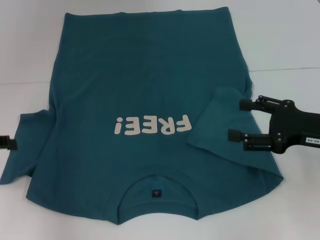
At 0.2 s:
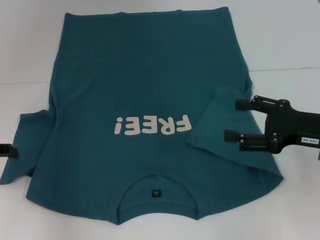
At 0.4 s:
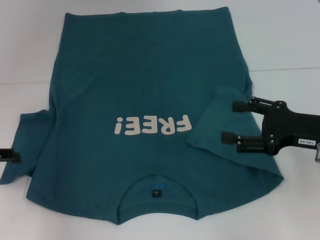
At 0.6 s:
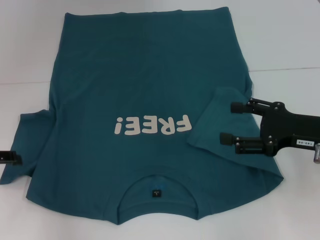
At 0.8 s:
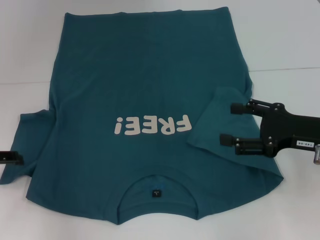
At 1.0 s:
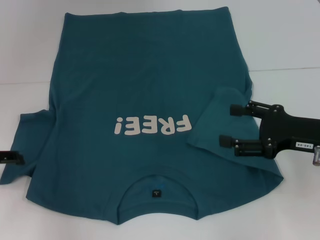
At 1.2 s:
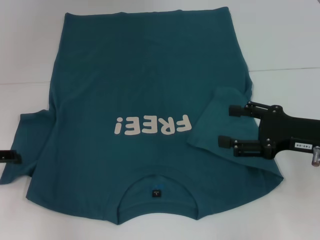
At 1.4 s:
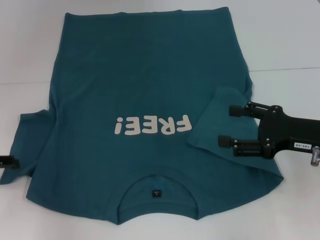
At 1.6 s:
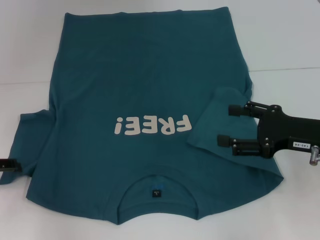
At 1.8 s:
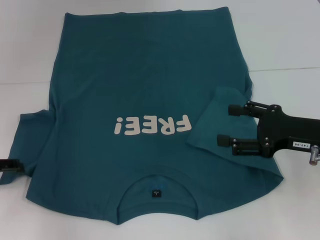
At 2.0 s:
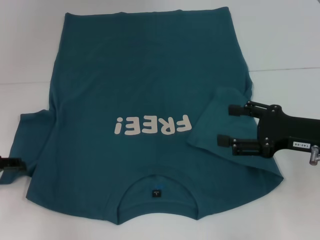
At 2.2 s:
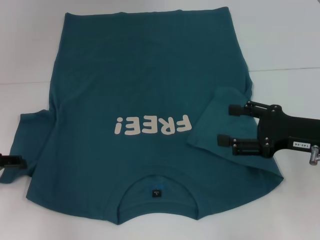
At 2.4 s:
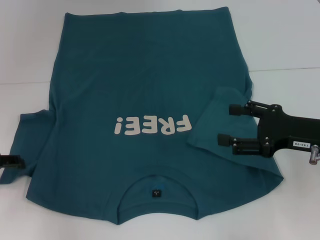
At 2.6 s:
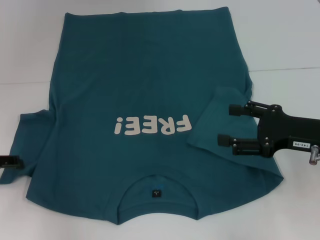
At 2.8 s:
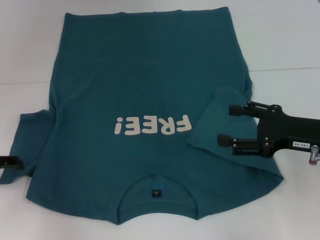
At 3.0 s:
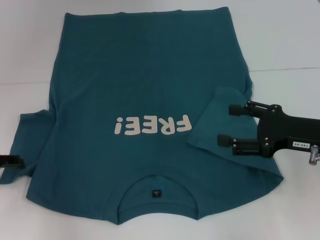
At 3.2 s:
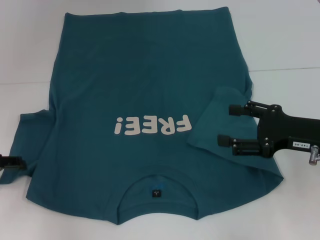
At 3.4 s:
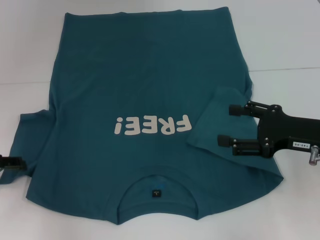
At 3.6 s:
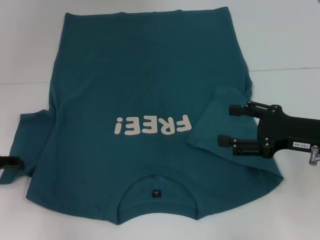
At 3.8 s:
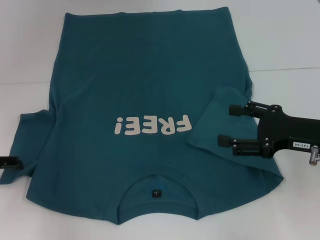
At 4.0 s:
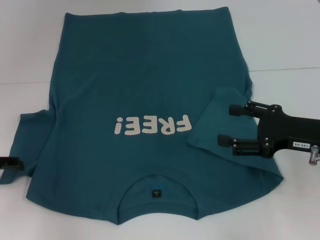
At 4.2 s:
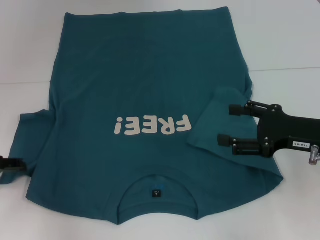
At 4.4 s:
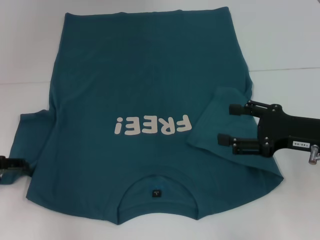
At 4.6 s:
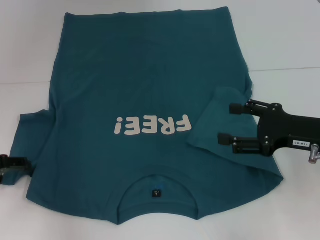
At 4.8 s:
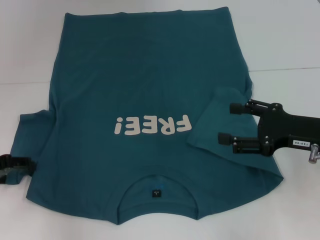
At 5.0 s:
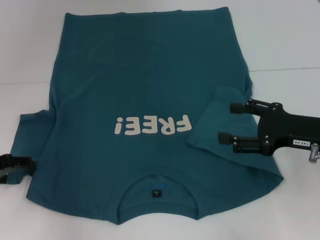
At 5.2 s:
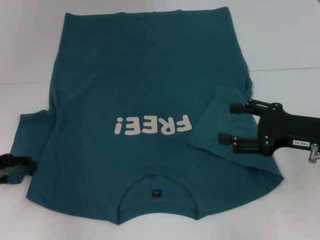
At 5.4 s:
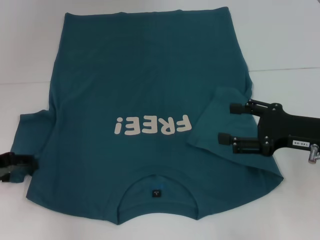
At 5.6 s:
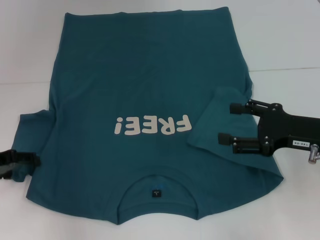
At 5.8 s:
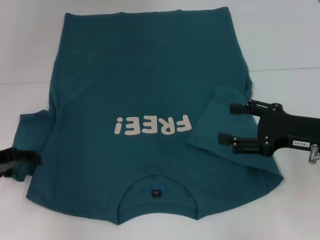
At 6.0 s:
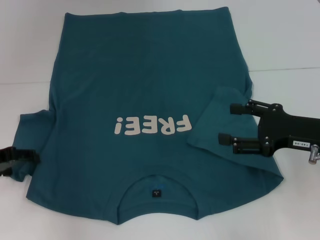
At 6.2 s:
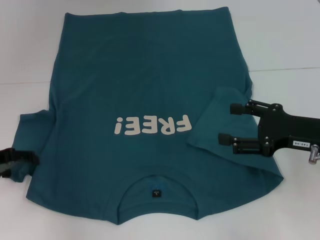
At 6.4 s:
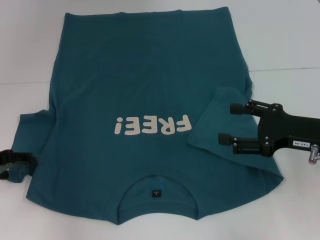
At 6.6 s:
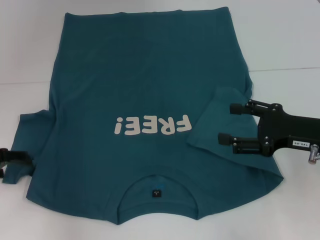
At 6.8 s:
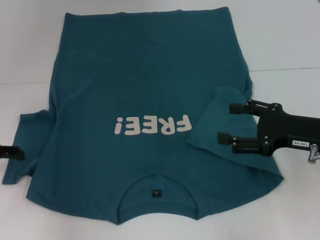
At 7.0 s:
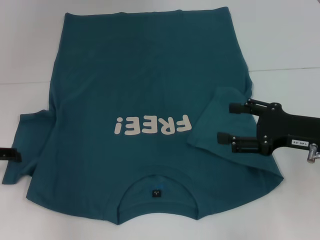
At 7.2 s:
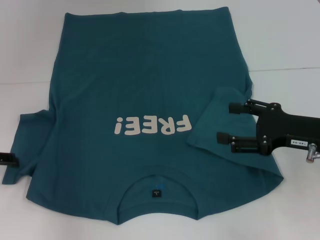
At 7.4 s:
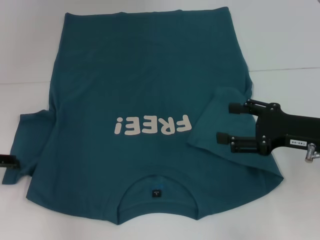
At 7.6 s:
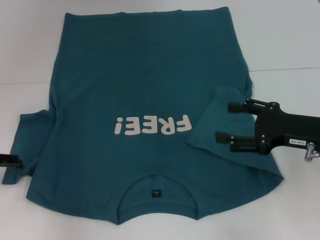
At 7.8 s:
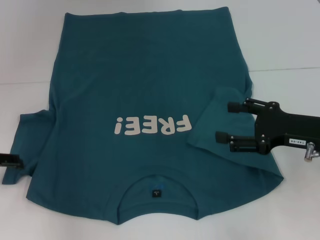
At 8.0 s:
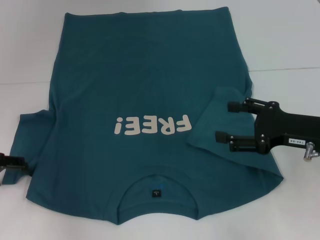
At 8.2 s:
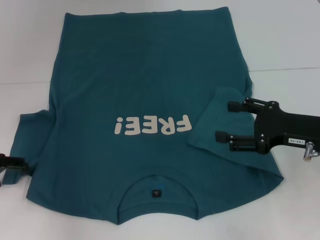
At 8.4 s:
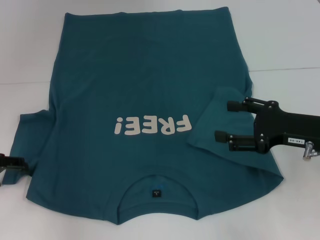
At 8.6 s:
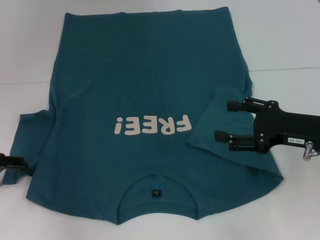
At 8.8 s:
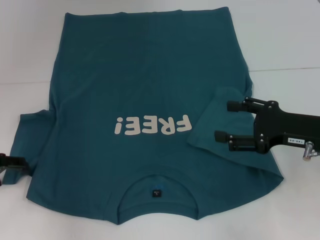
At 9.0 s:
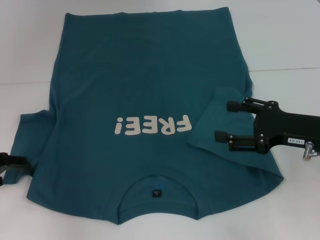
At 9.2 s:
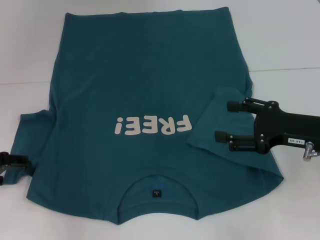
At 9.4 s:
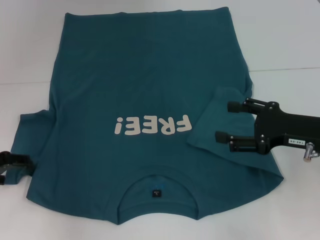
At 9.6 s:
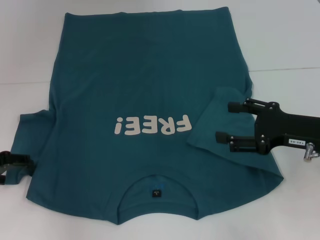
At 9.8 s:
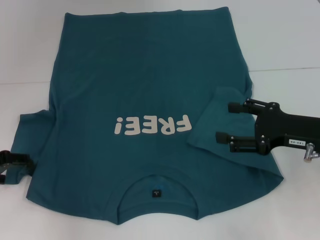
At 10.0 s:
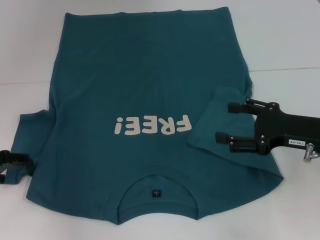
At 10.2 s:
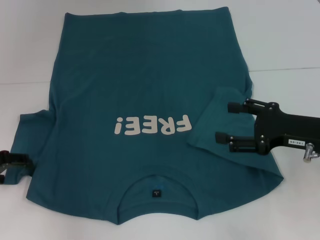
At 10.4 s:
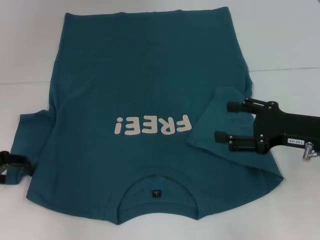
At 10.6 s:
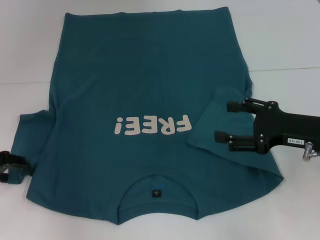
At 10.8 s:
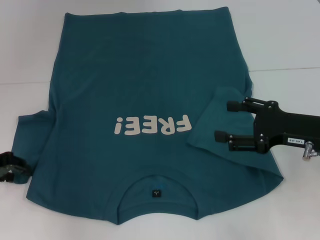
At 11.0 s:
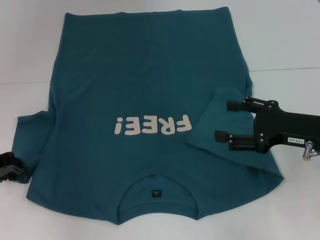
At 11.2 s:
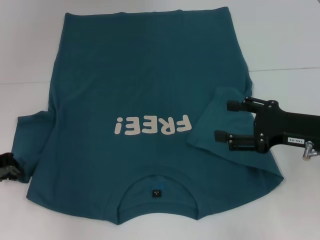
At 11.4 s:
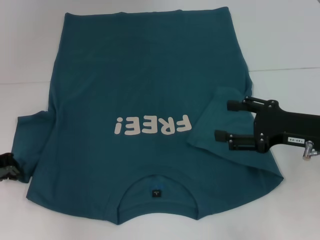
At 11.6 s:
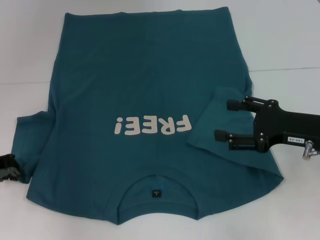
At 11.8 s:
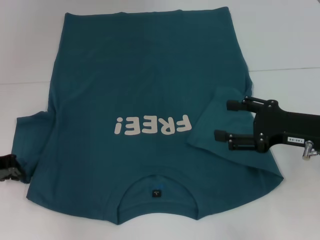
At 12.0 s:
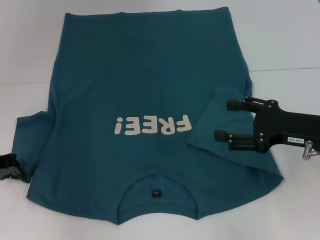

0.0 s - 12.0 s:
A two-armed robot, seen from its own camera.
0.0 s - 1.6 s: There are only small adjustments of the grippers.
1.6 s - 3.0 s: Neither gripper changes place.
3.0 s - 4.4 s: Both grippers stay about where they are.
4.4 s - 9.0 s: The grippers stay close to where they were, moving slightly.
9.0 s - 10.4 s: Both grippers stay put.
10.4 s - 12.0 s: The left gripper closes its fingers.

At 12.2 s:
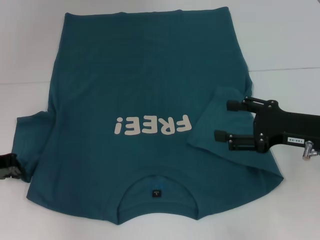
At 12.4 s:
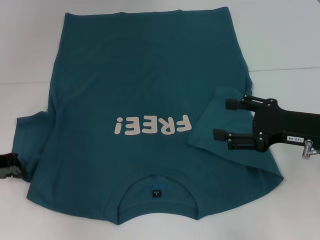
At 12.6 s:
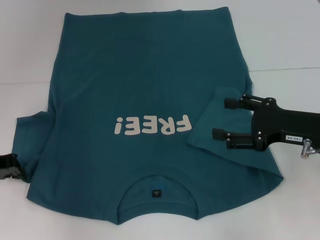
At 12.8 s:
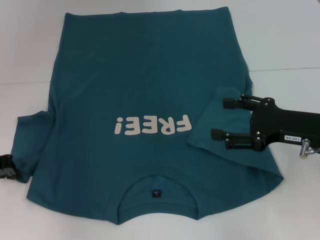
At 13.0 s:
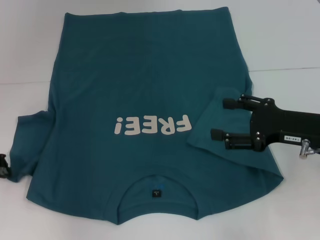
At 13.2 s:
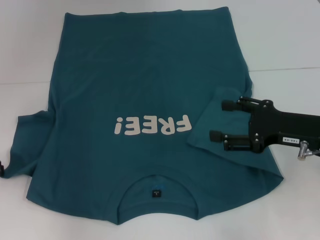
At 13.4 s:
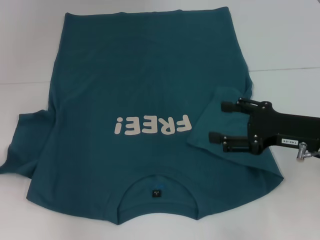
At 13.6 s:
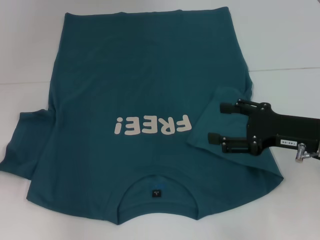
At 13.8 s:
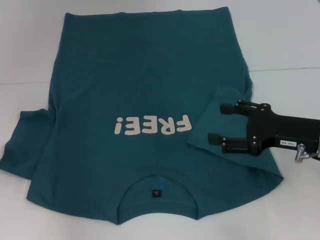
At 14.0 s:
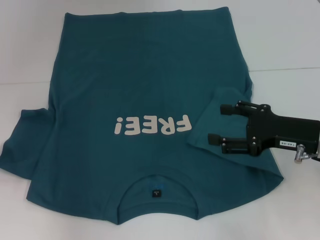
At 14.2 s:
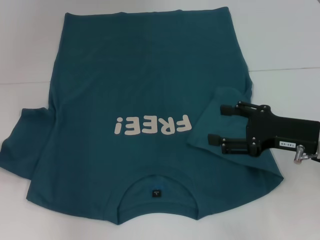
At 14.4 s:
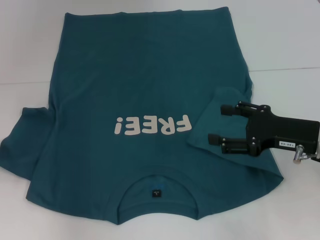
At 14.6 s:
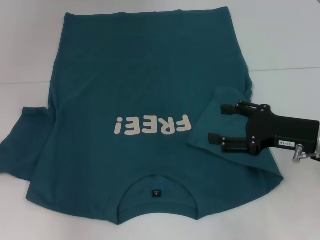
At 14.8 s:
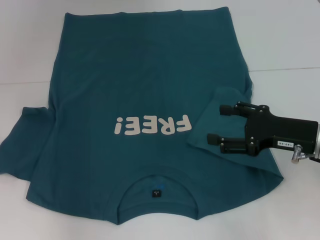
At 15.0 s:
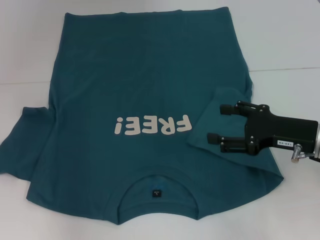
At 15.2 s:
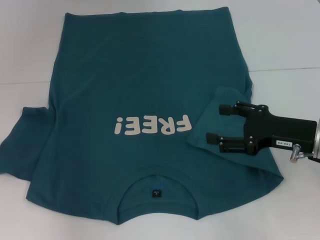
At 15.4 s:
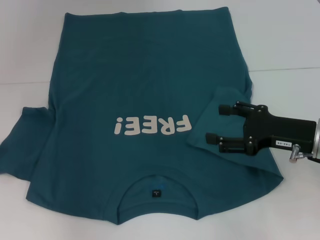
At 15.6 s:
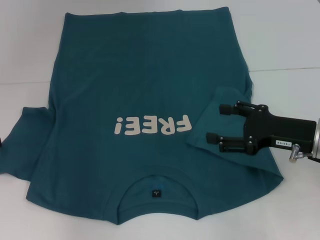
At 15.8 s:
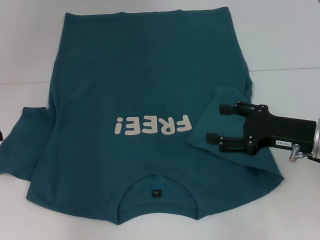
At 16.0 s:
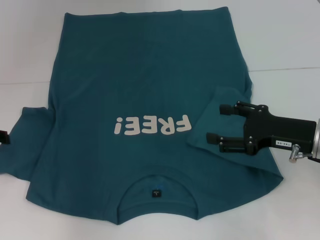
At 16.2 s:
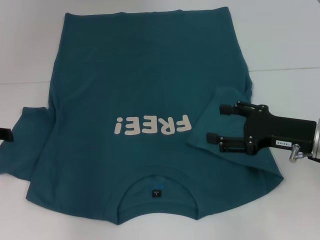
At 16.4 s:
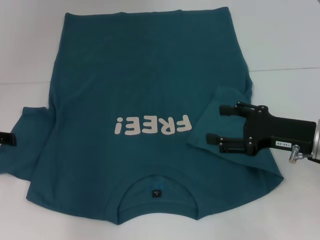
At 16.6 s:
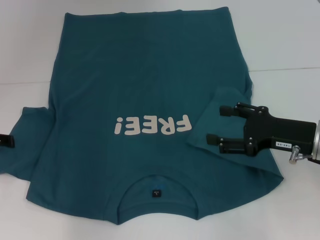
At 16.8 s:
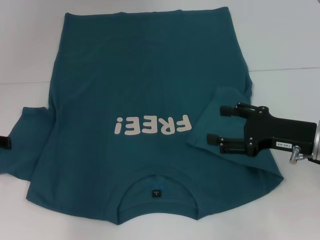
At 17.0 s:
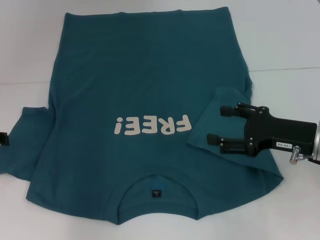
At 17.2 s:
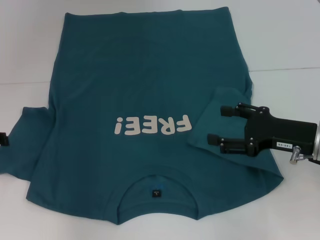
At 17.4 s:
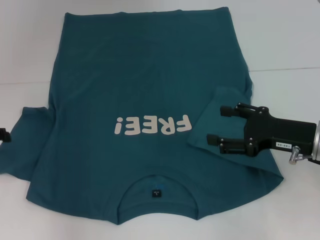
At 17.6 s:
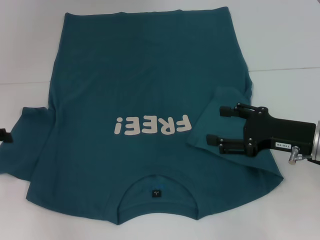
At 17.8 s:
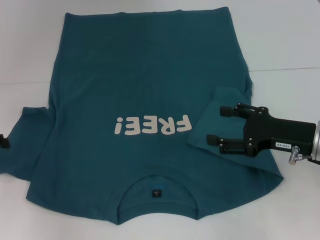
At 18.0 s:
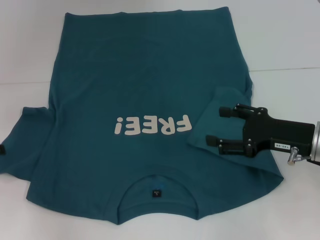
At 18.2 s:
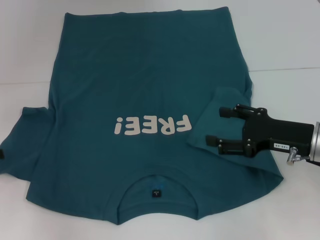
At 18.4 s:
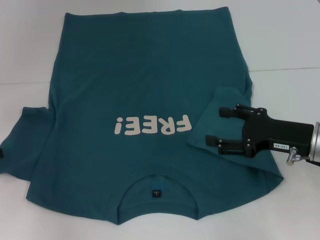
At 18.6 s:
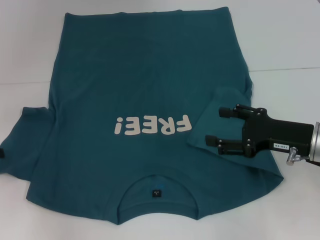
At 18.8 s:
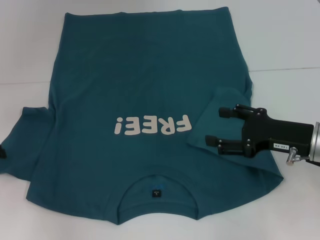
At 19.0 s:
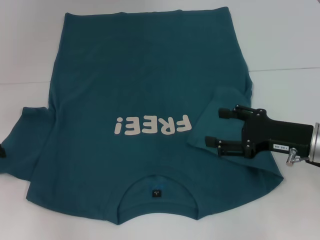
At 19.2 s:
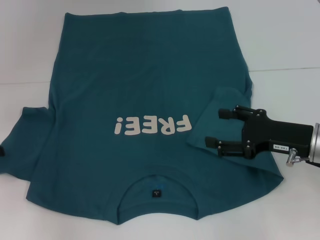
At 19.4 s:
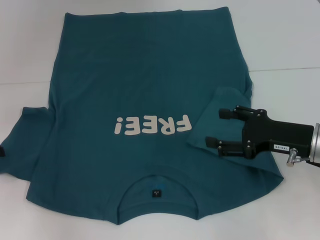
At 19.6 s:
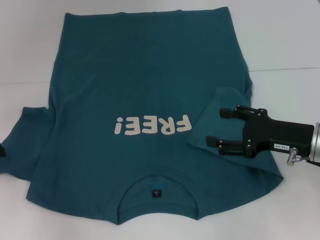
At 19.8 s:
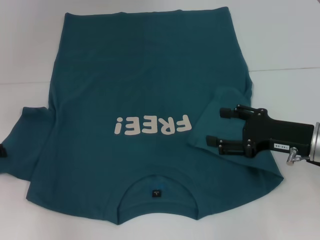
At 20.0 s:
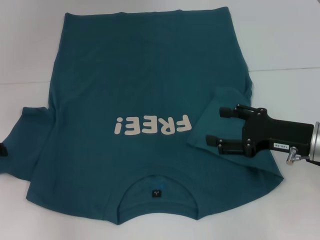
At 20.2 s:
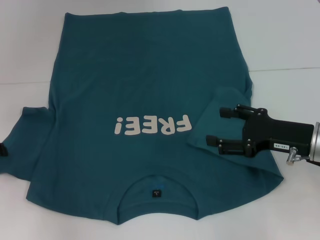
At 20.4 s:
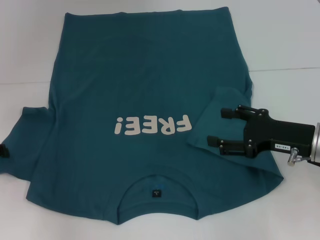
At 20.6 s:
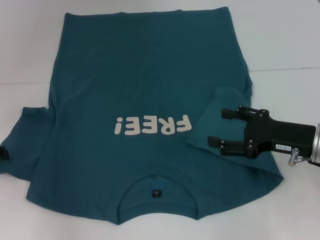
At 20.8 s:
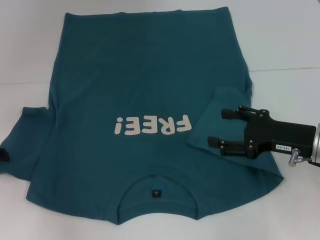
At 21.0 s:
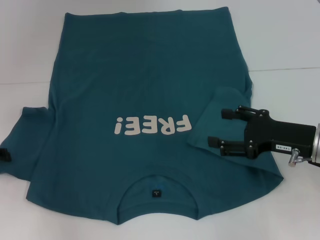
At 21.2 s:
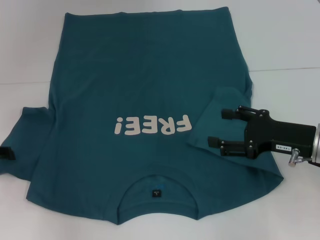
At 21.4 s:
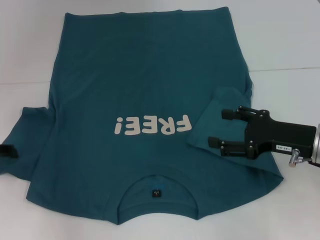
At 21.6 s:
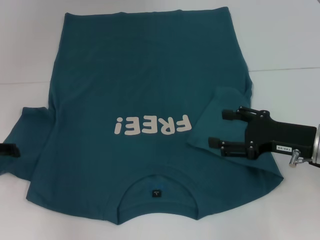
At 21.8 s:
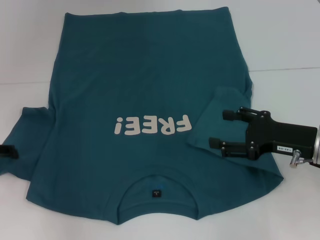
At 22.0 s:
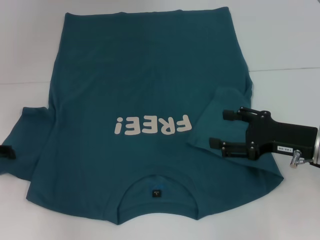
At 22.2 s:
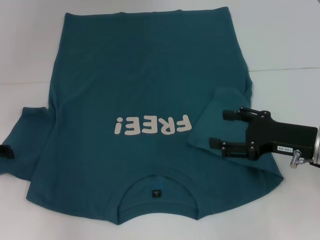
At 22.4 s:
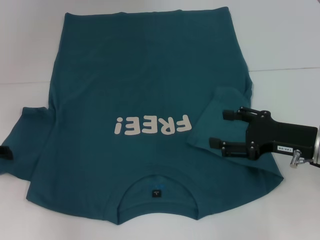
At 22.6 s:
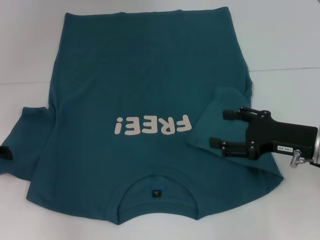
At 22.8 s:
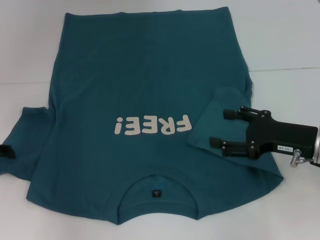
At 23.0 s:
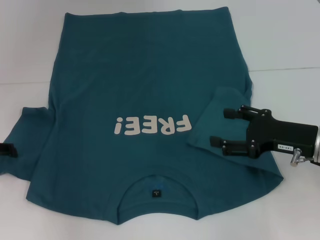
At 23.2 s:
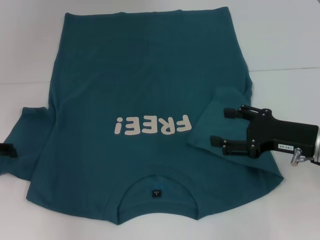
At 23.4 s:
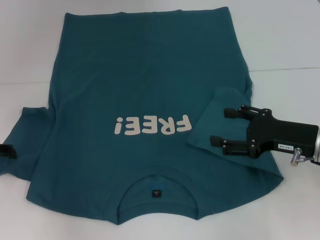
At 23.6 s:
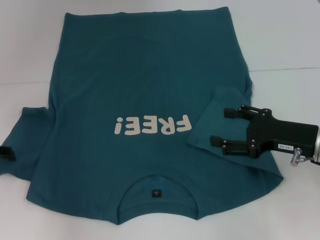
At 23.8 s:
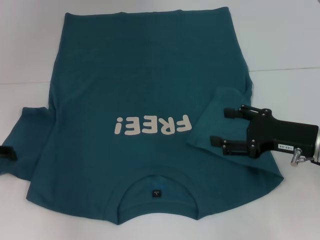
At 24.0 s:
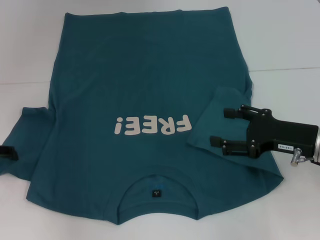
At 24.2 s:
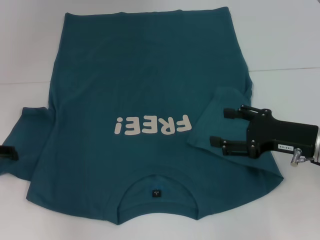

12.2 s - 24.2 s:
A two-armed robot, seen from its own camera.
12.2 s - 15.2 s: The grippers make only small movements.
19.8 s - 21.2 s: The two grippers keep their place.
21.2 s - 24.2 s: Both grippers stay put.
